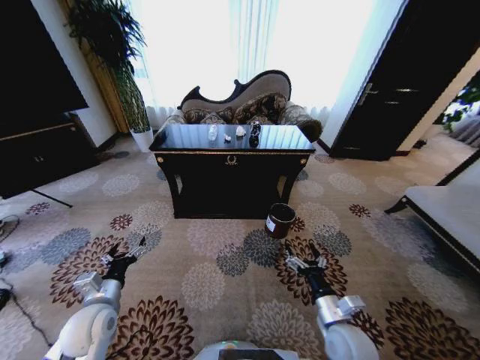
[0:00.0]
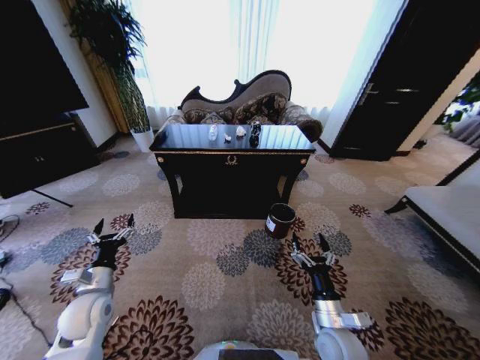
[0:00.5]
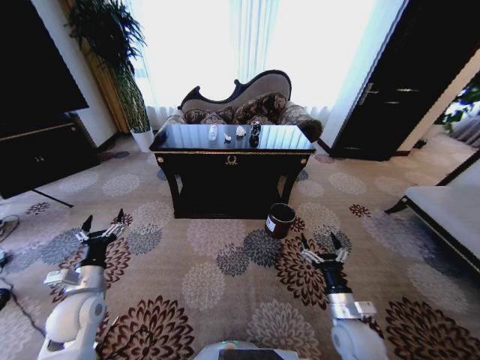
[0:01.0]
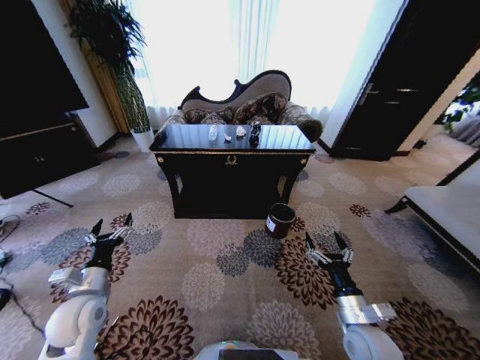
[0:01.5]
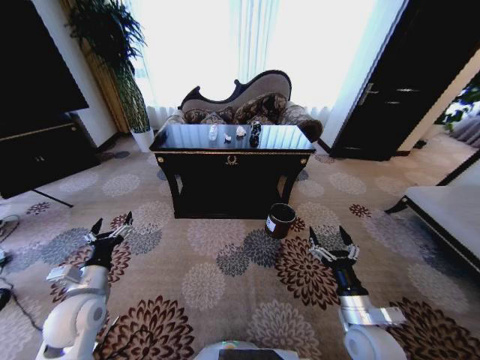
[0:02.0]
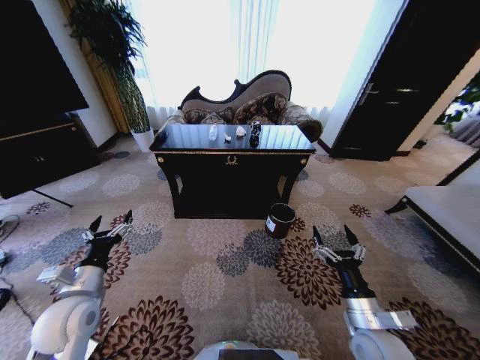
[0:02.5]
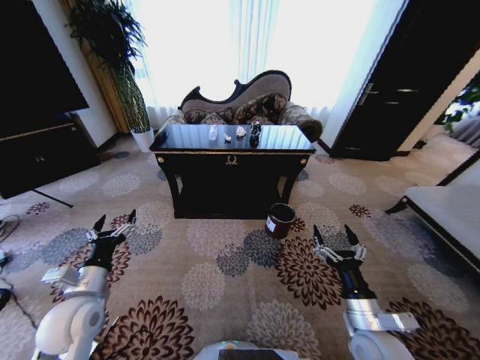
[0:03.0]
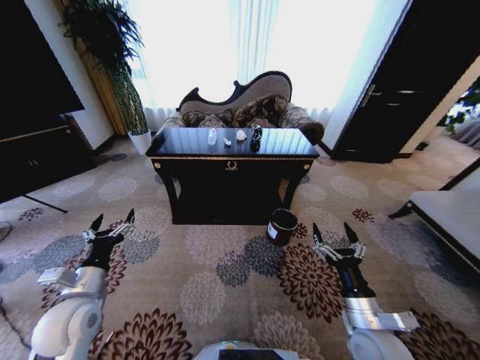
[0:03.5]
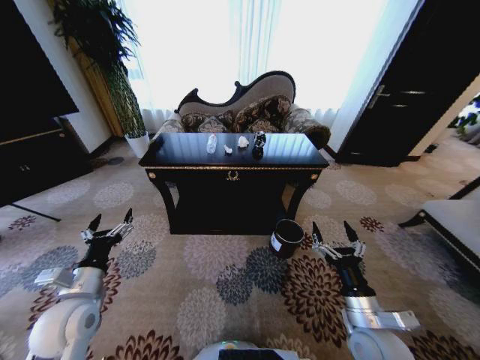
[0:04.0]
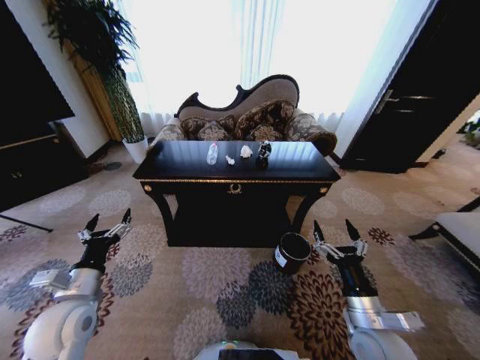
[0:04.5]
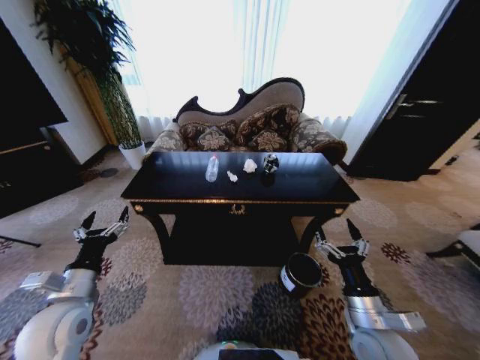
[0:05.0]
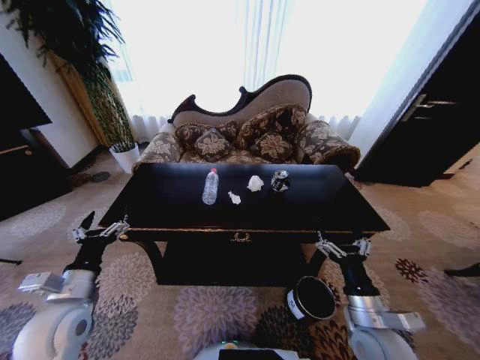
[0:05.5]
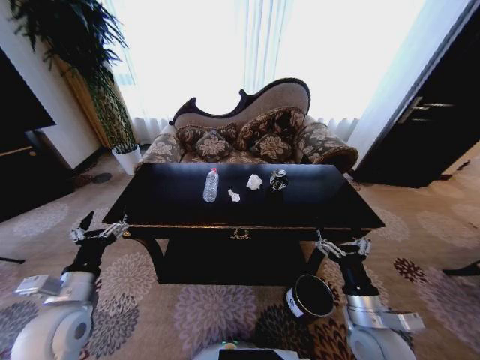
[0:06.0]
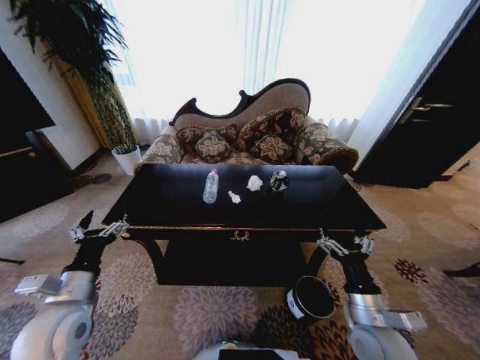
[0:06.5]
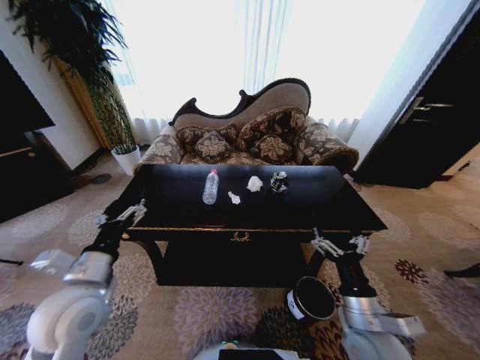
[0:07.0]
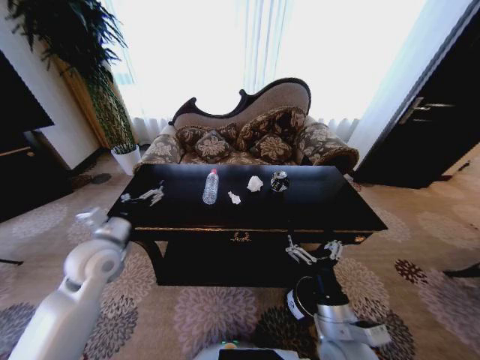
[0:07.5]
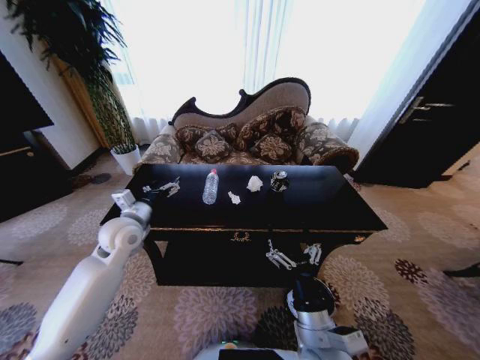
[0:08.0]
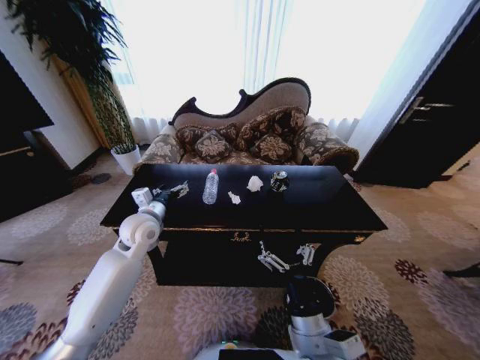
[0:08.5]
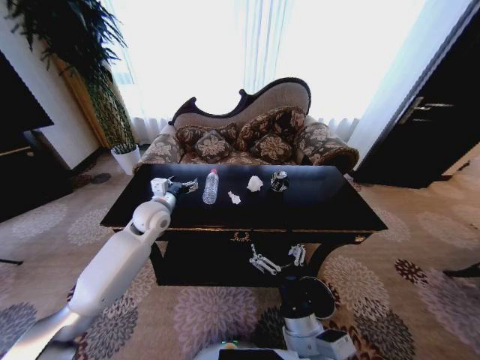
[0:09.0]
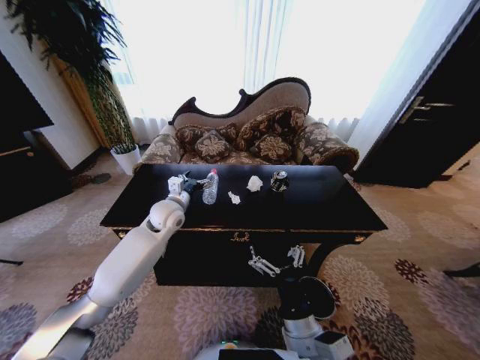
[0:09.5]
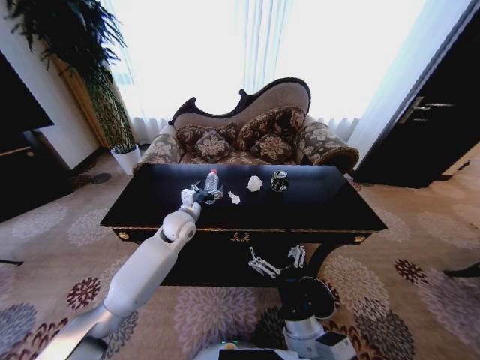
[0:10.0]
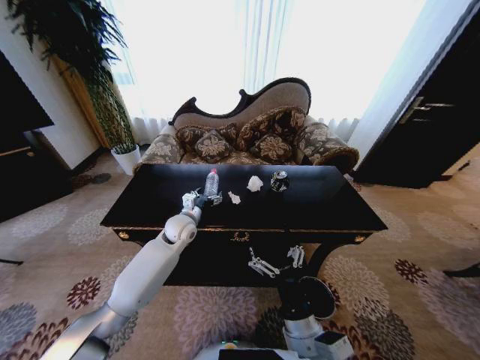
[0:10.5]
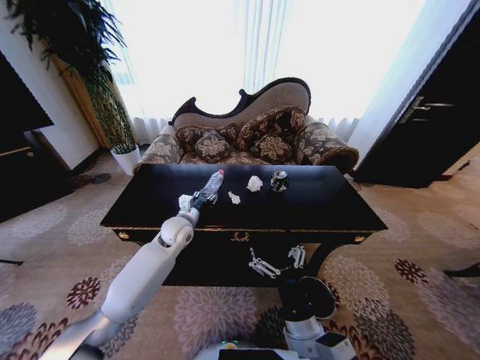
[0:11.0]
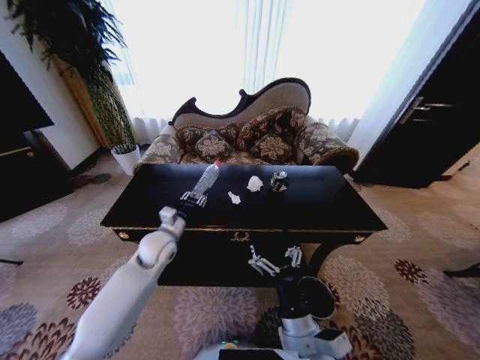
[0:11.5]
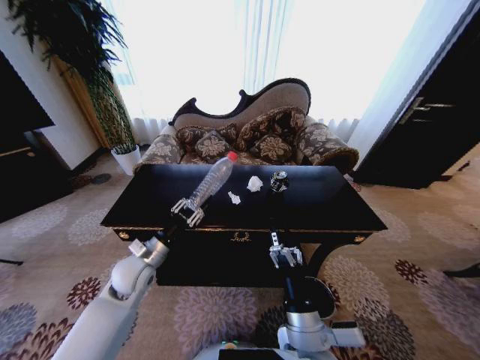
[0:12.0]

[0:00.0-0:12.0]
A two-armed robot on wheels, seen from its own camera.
Task of the whole recording: Move to the front of the table and place the trash on the table into the trash bin.
0:06.0 to 0:08.0: The right gripper is displaced to the left by some 15 cm; the left gripper travels forward by about 20 cm.
0:08.0 to 0:10.0: The left gripper travels to the right, forward and downward by approximately 15 cm.
0:10.0 to 0:12.0: The left gripper goes about 15 cm backward and to the left, and closes its fingers.

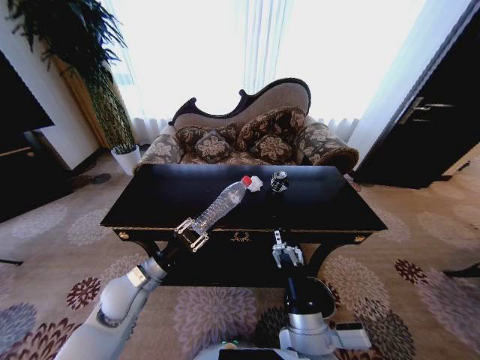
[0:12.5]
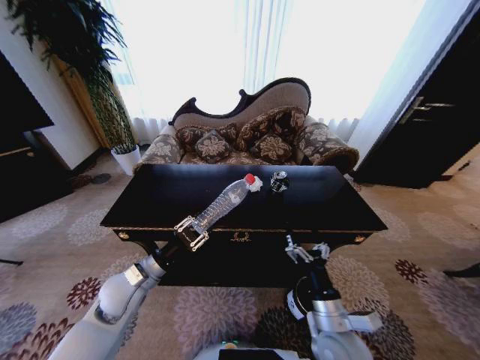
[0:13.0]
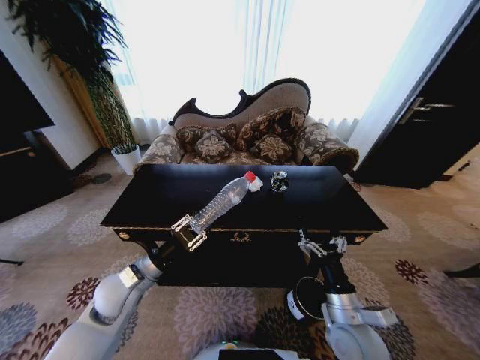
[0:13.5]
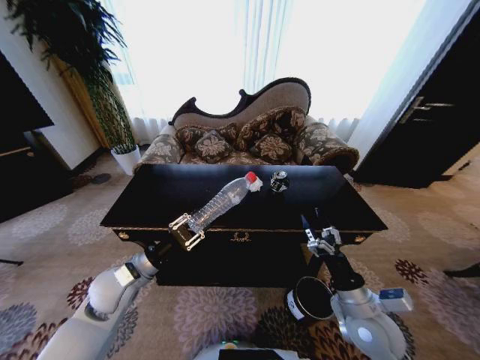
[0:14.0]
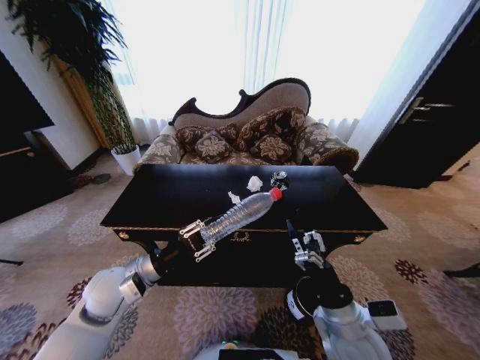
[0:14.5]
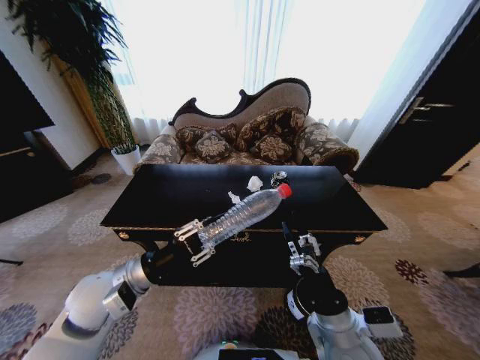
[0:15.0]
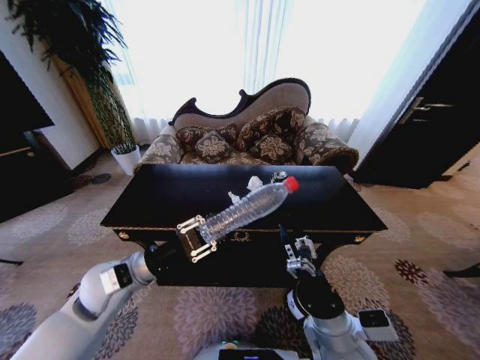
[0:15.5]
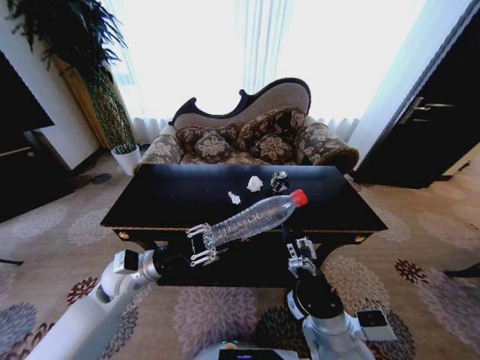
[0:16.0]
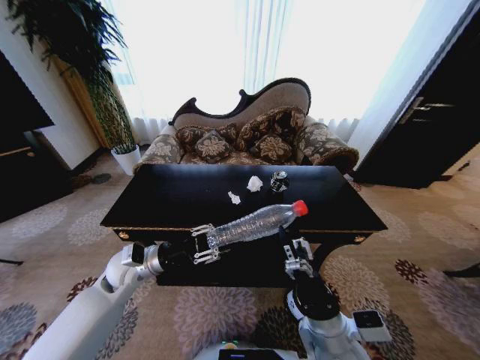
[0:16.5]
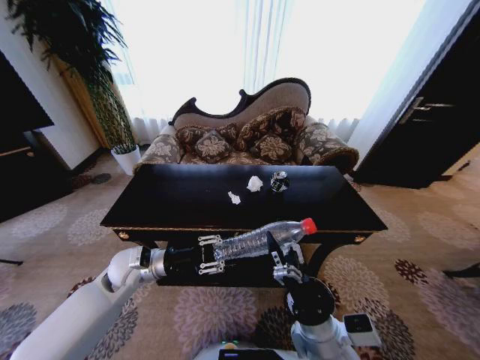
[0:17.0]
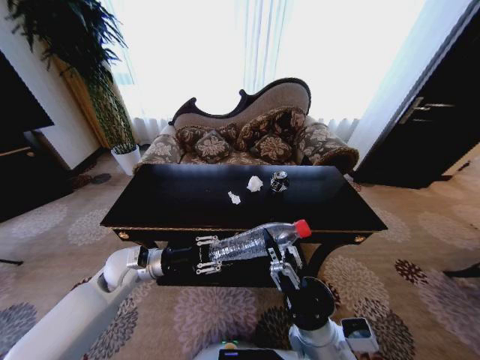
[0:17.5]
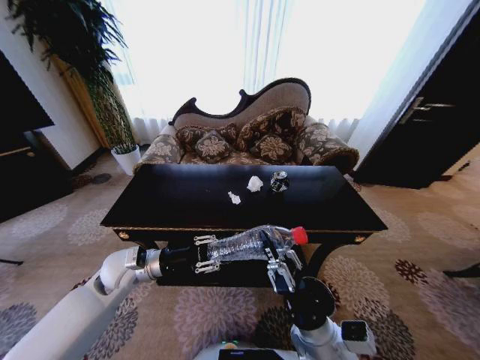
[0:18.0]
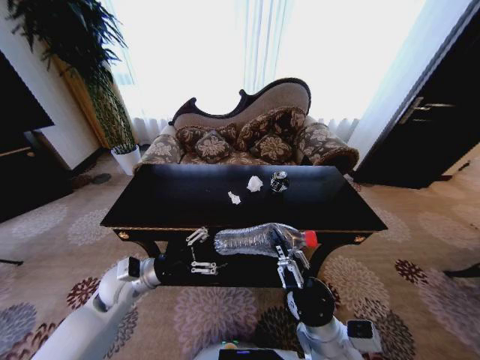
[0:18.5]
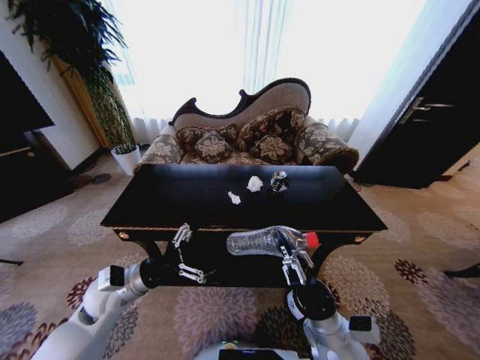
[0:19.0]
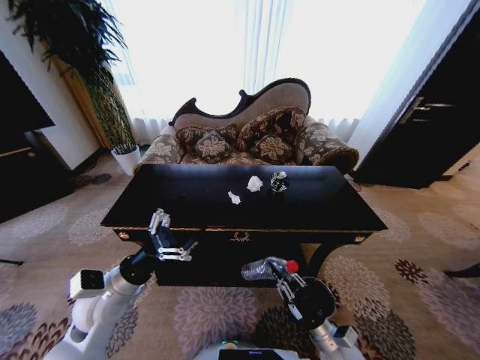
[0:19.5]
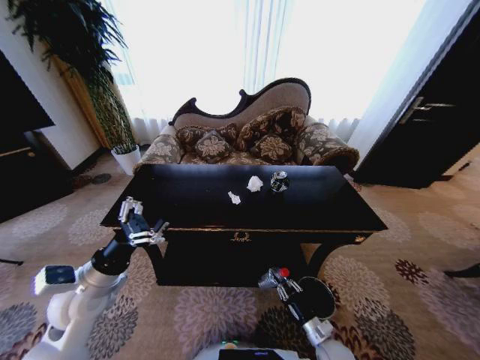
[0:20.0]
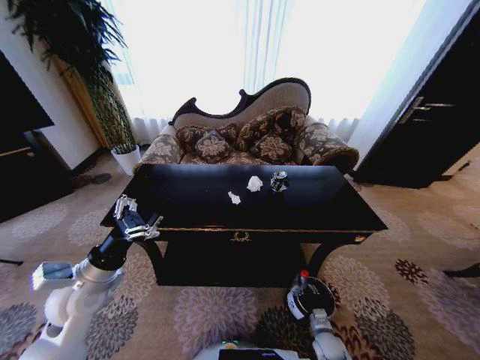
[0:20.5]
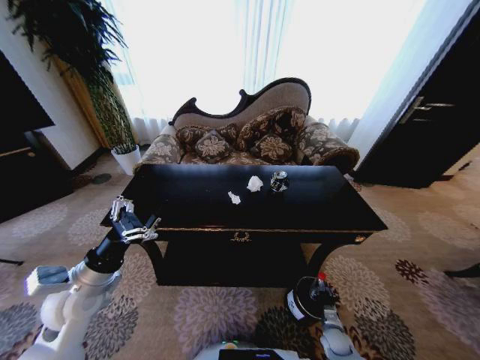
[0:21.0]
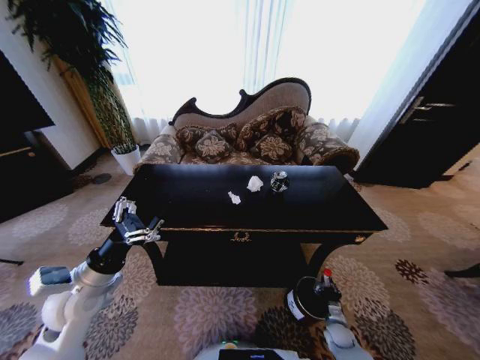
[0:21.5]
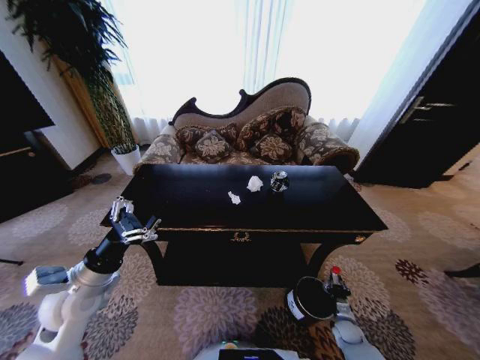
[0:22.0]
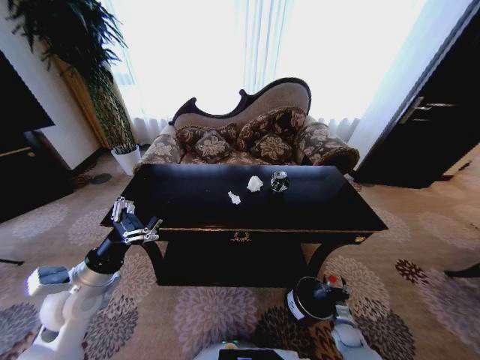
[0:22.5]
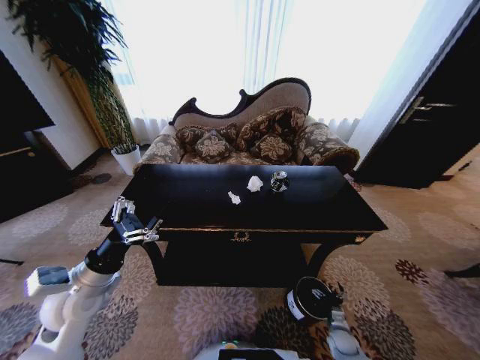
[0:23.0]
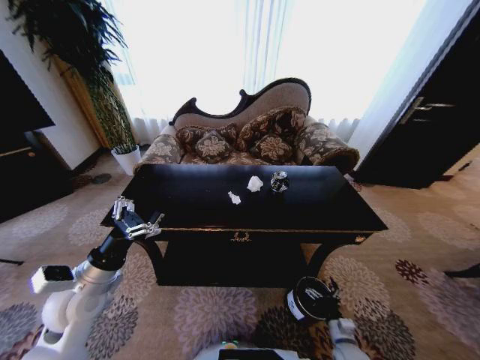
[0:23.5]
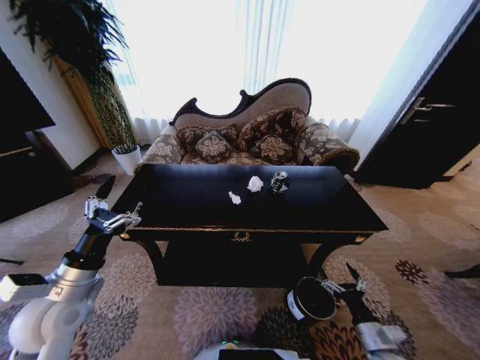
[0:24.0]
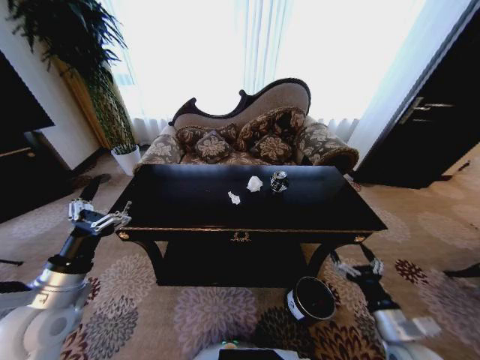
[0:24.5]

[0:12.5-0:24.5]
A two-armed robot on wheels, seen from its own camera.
Task of the whole recording: Move to the front of the table and place the trash on the table into the trash bin.
0:12.5 to 0:14.5: The left gripper travels upward by about 5 cm, while the right gripper heads to the right, covering some 10 cm.
0:14.5 to 0:16.5: The left gripper travels forward by about 5 cm.
0:16.5 to 0:18.5: The left gripper opens up. Meanwhile the right gripper closes up.
0:18.5 to 0:20.5: The right gripper travels downward and to the right by approximately 30 cm. Meanwhile the left gripper shifts about 5 cm to the left, and opens its fingers.
0:20.5 to 0:22.5: The right gripper goes approximately 10 cm to the right, and opens up.
0:22.5 to 0:24.5: The right gripper goes about 30 cm upward, and opens; the left gripper changes place by approximately 5 cm.

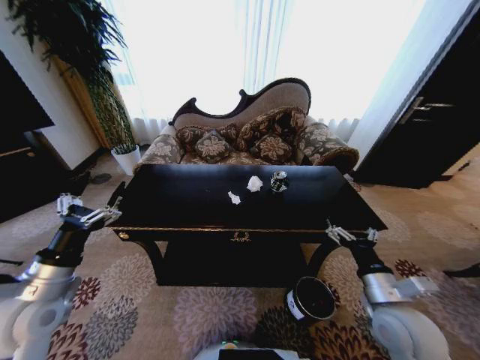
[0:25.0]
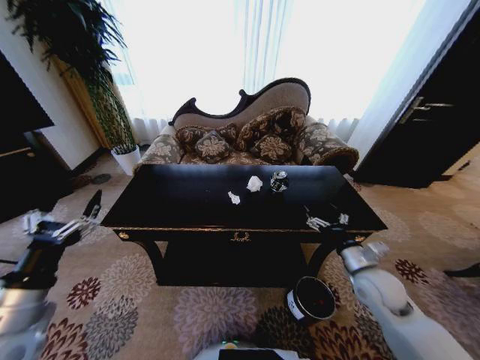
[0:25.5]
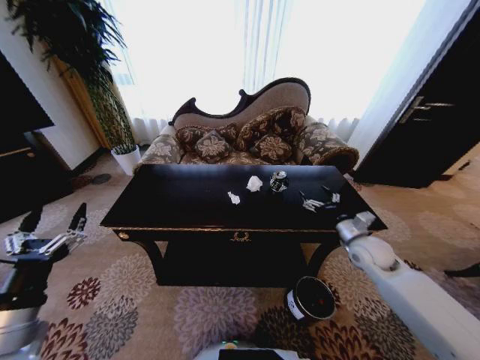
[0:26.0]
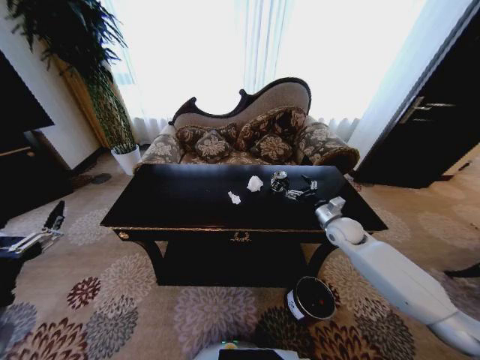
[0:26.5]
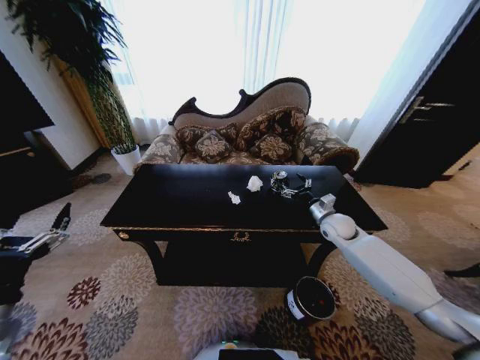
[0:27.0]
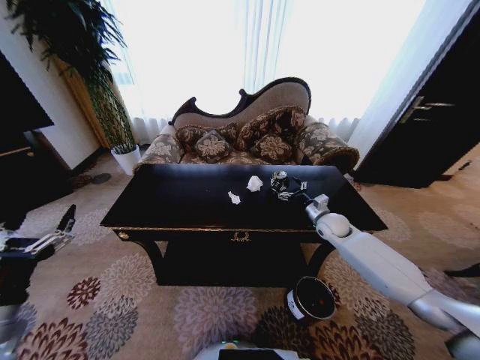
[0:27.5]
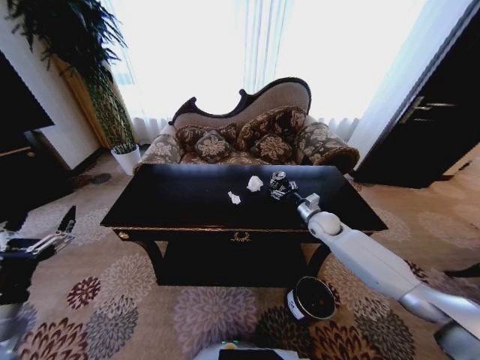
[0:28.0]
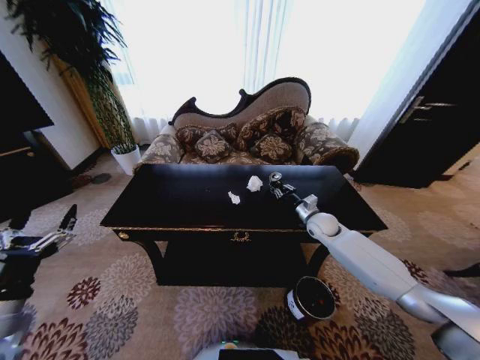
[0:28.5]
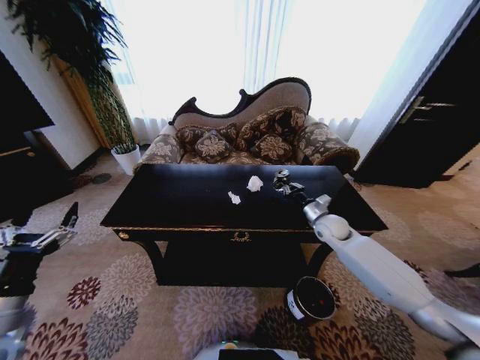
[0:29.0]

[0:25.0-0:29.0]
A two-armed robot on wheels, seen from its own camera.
Task of the whole recording: Move to the front of the table and place the trash on the table into the trash bin.
0:25.0 to 0:27.0: The left gripper shifts approximately 10 cm backward, while the right gripper is displaced forward by some 30 cm.
0:27.0 to 0:29.0: The right gripper closes up.
